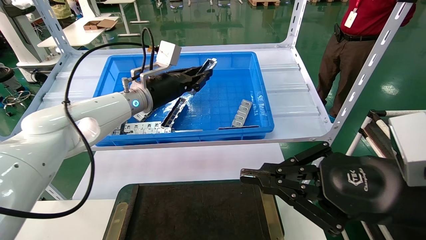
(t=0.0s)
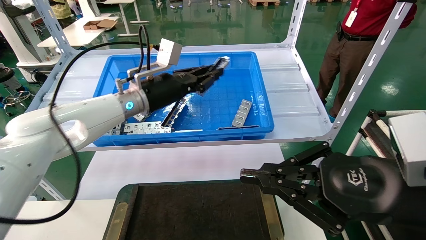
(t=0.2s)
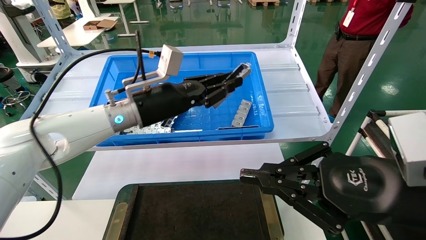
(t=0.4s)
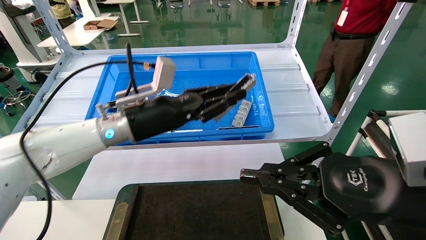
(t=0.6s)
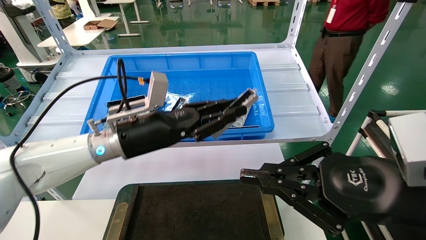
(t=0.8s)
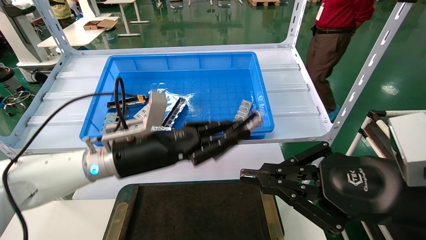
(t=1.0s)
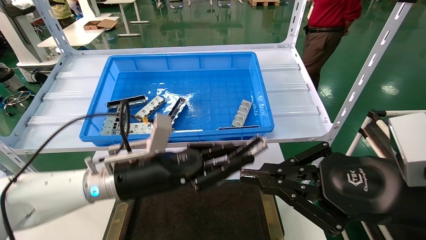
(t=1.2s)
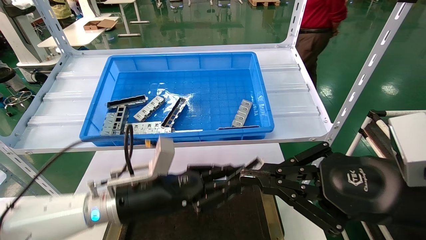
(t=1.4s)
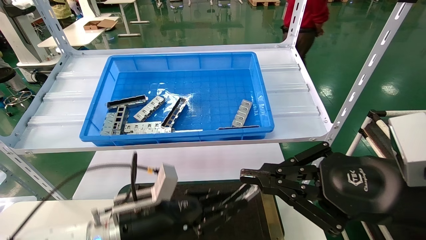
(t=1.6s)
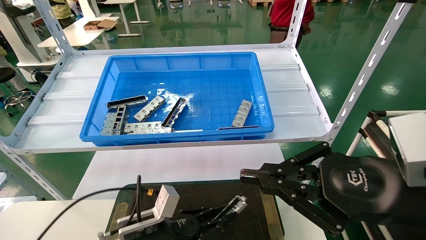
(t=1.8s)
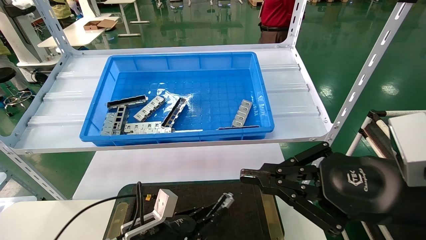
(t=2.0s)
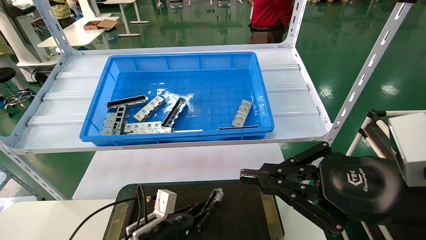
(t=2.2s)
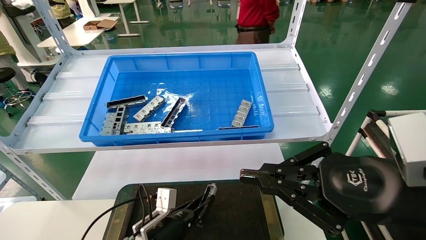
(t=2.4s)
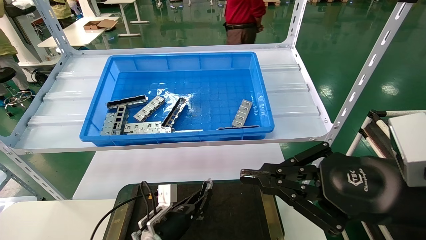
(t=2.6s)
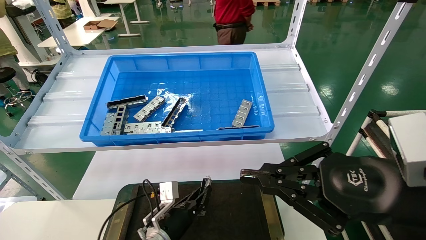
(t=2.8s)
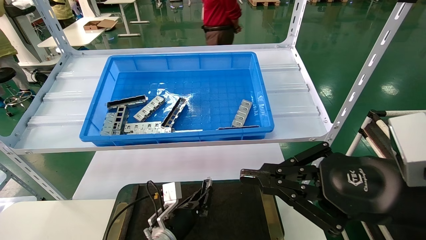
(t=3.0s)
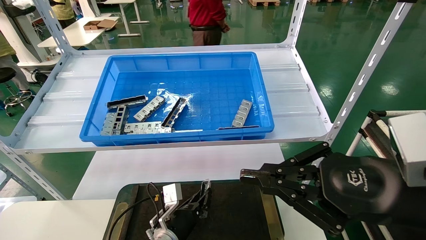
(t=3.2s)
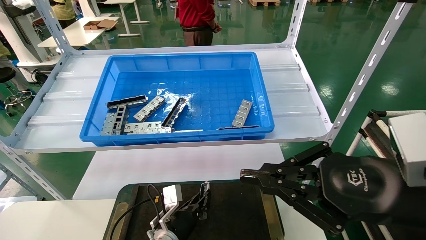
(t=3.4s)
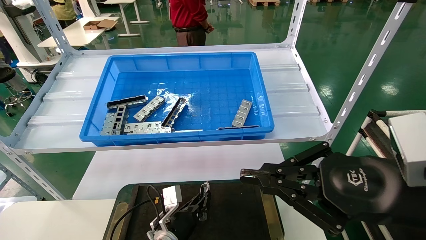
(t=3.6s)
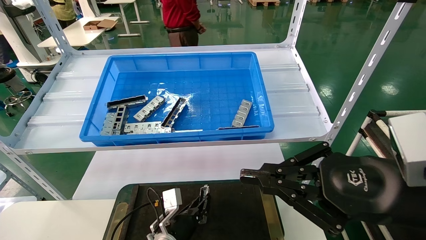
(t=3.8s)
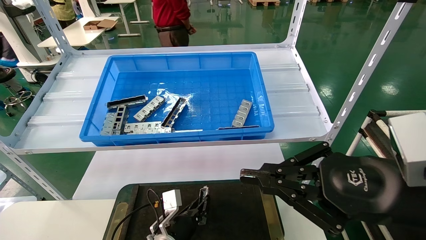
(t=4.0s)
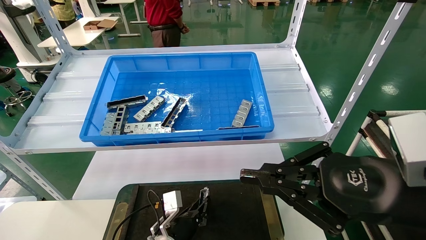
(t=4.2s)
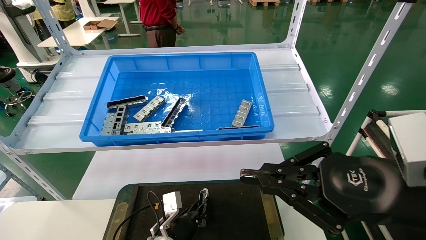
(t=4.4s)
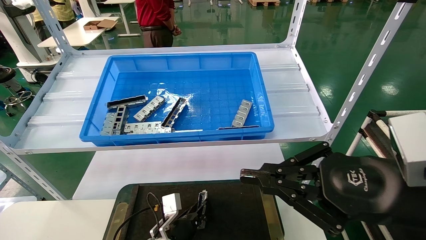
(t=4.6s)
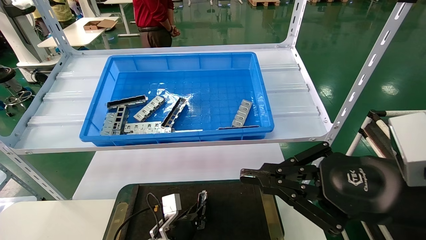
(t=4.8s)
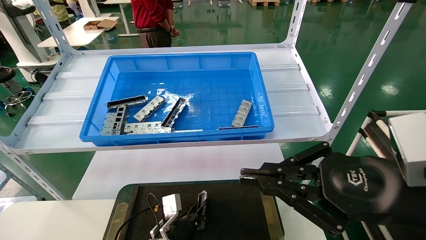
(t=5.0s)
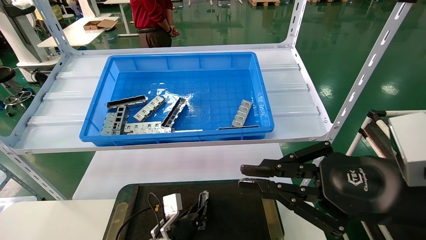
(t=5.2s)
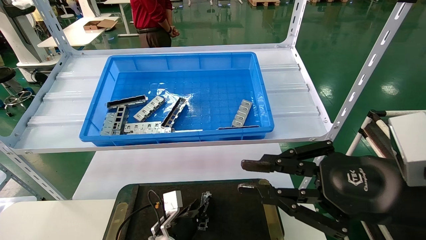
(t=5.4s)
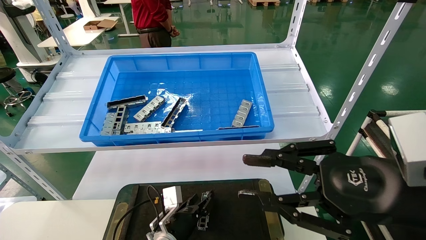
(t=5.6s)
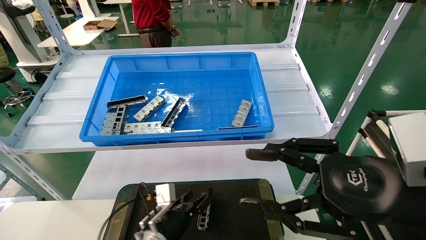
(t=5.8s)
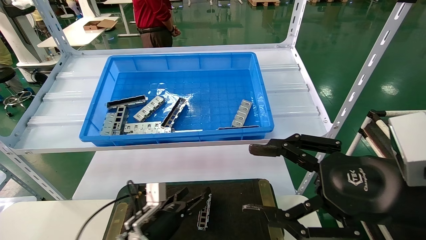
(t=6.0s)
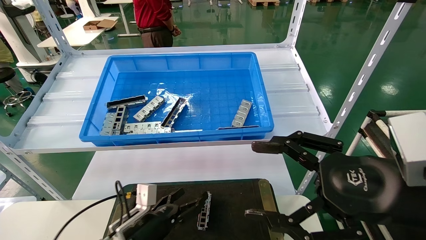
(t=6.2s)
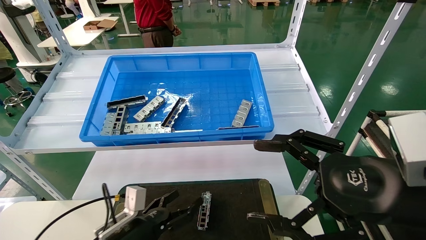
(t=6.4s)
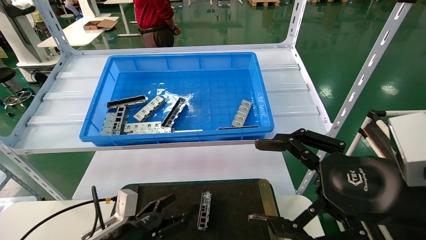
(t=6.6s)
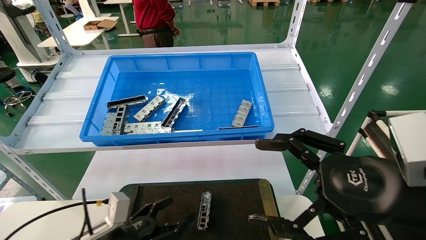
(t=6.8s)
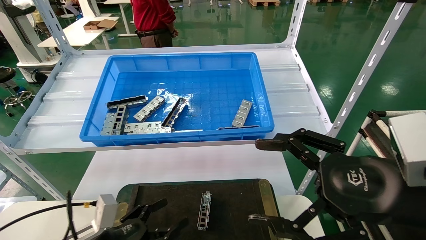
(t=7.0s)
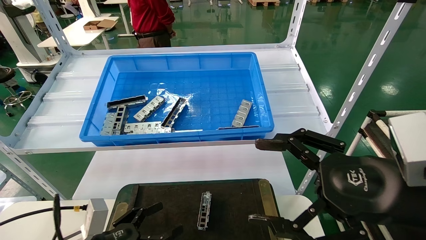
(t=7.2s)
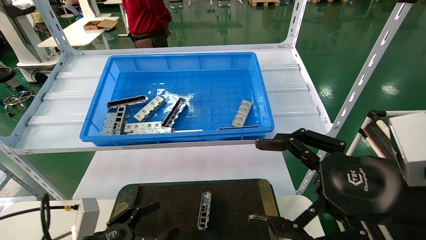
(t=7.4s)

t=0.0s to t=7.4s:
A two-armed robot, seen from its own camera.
Task of the whole recording: Grasp the part with one hand and place it on the black container.
Step, t=0.0s to t=5.4s: Place the front USB bracket into the box.
t=0.0s to t=1.4s: The left gripper moves downward and backward, approximately 20 cm.
t=1.4s to t=3.0s: The left gripper moves downward and forward, roughly 20 cm.
t=3.0s to t=4.4s: The grippers stay close to where they were, moving slightly.
t=4.4s to t=6.0s: The left gripper is displaced to the left by about 5 cm, and opens. The right gripper opens.
t=6.0s to t=7.4s: The right gripper opens its fingers. Meanwhile the left gripper travels backward, to the left and upward by about 20 cm.
